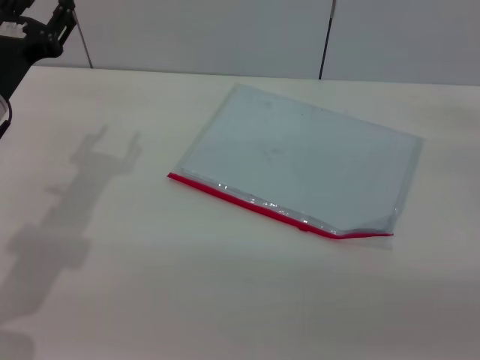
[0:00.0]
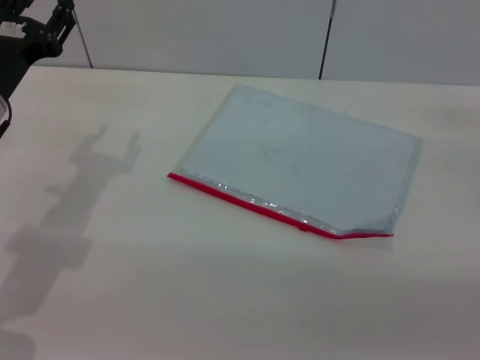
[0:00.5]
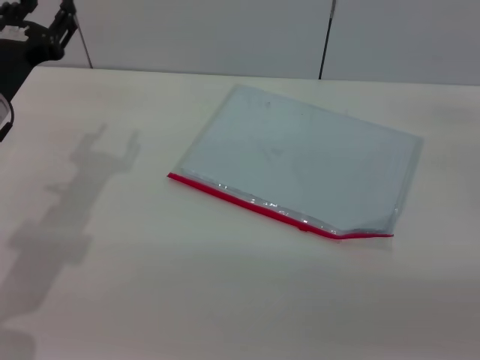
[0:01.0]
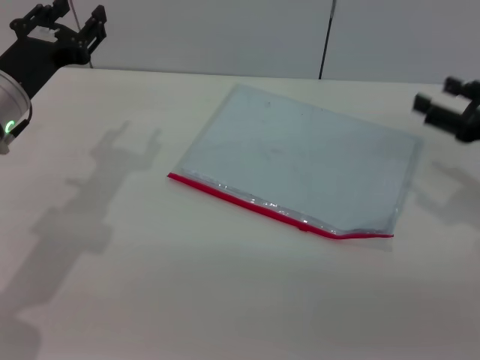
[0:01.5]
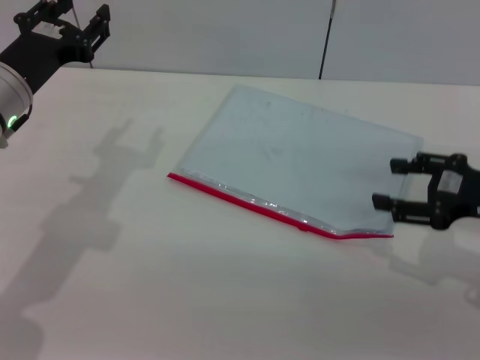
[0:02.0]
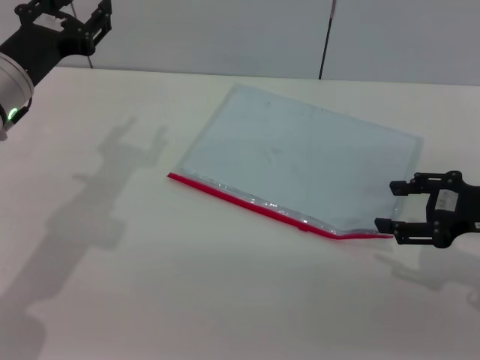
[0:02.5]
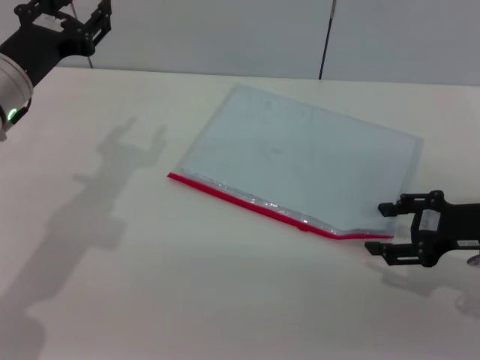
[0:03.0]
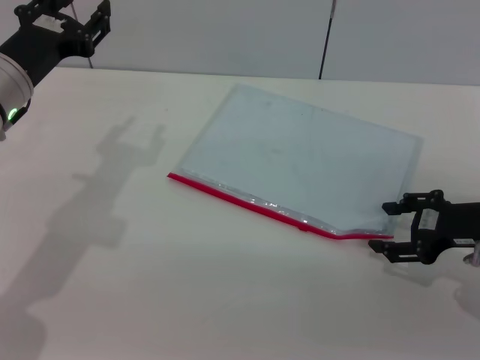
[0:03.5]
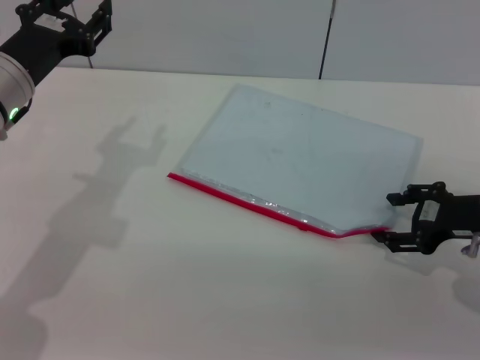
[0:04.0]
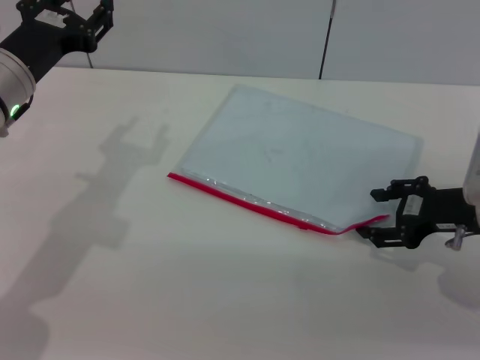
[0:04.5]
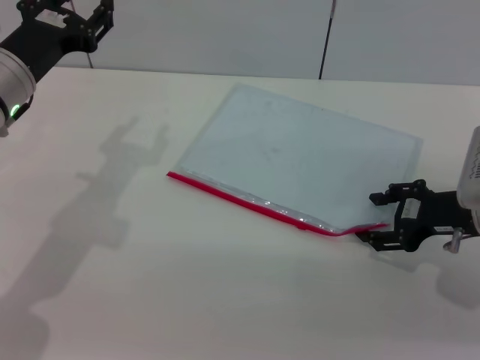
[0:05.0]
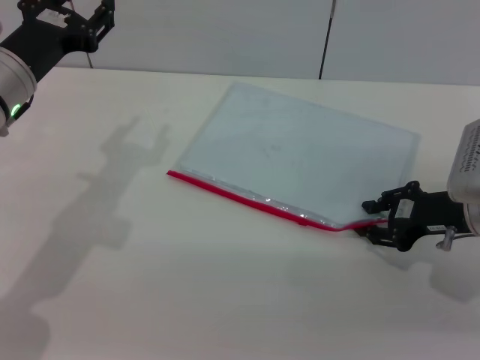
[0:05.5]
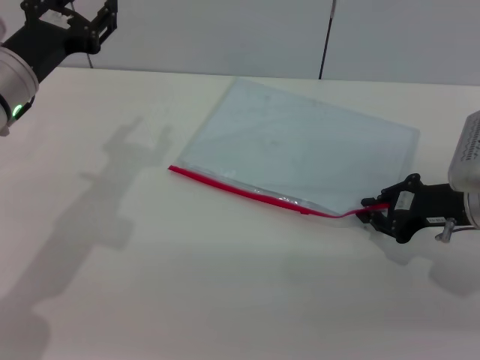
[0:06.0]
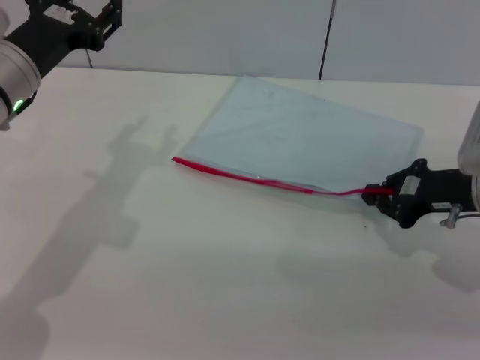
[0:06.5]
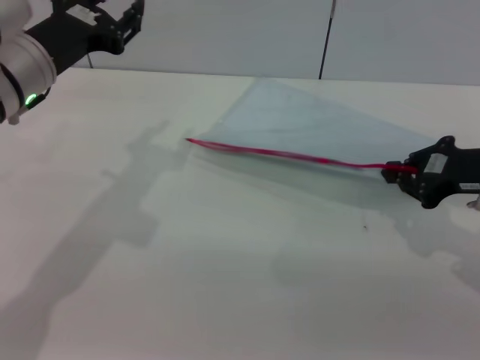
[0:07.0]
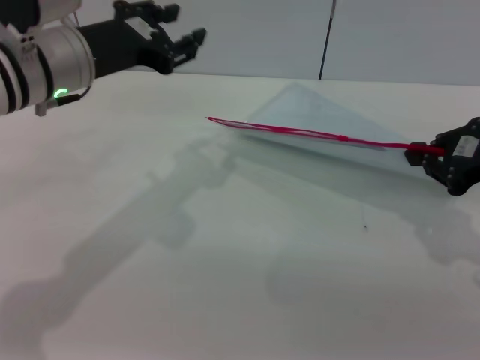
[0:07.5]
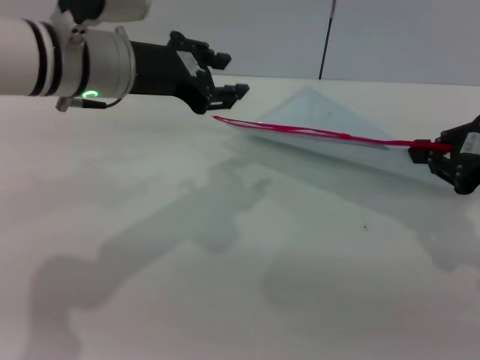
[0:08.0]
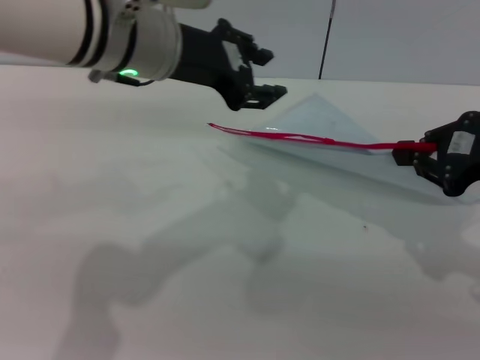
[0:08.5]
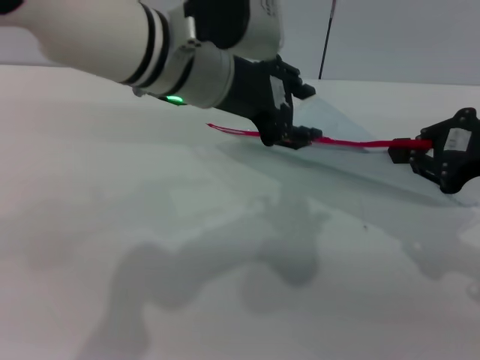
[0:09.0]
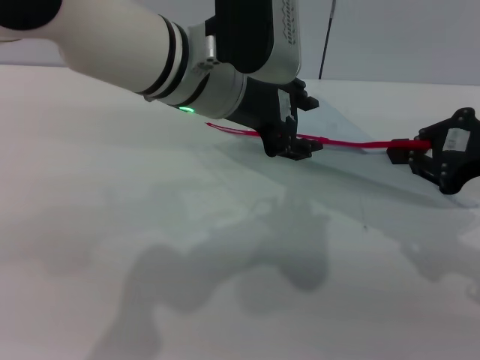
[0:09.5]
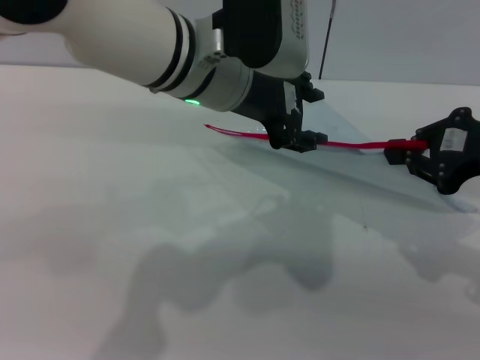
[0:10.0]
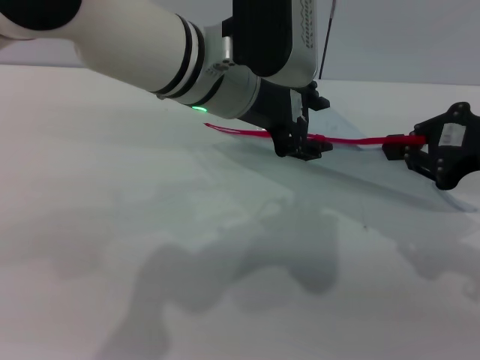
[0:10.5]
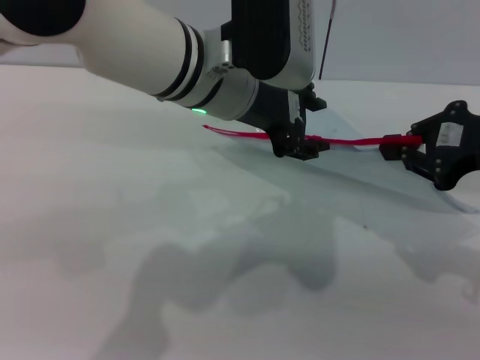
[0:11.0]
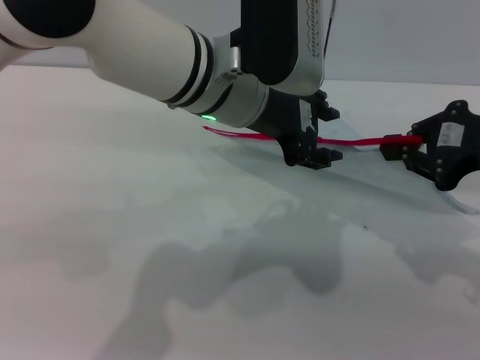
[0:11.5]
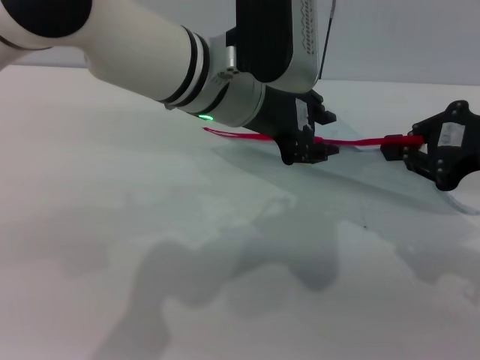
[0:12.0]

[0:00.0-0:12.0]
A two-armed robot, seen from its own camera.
Step, 0:00.0 to 0:08.5: Pick up the transparent plastic bag with the right gripper.
0:00.0 to 0:02.0: The right gripper is displaced to the left by roughly 5 cm.
0:04.0 to 0:06.0: The right gripper closes up.
0:06.0 to 0:08.0: The left gripper travels to the right and upward by roughly 10 cm, while the right gripper travels upward by about 10 cm.
0:08.0 to 0:10.0: The left gripper shifts some 10 cm to the right.
0:10.0 to 0:12.0: The grippers make only small movements.

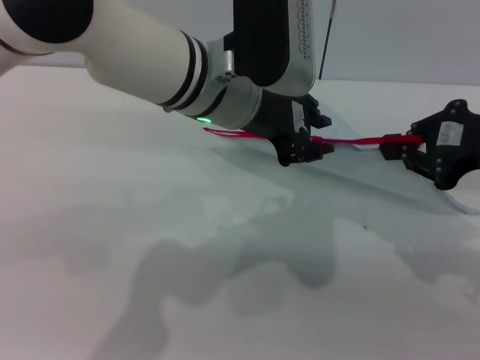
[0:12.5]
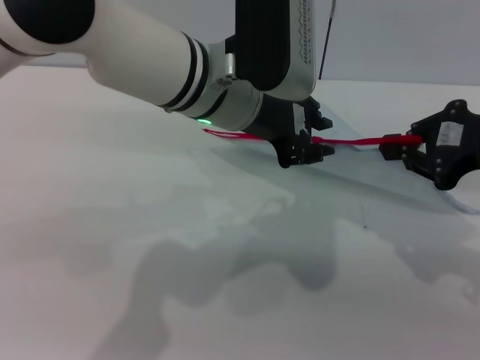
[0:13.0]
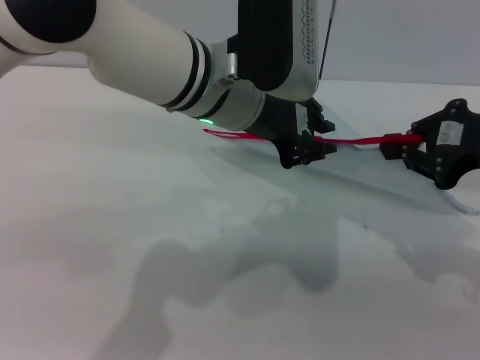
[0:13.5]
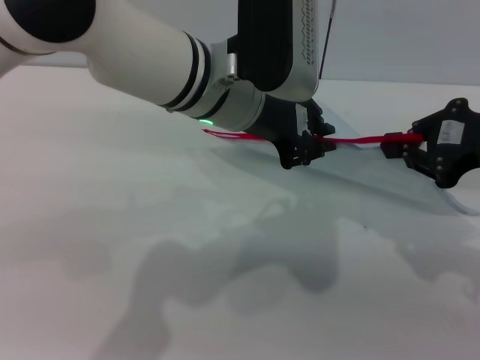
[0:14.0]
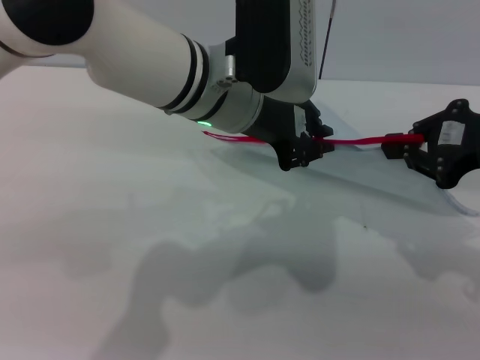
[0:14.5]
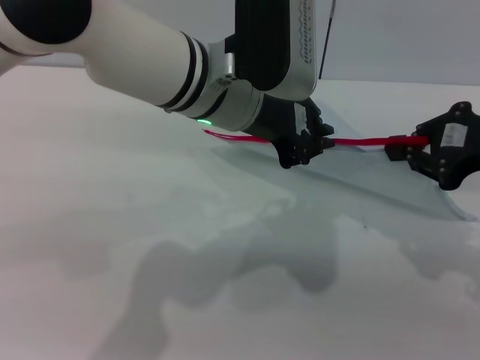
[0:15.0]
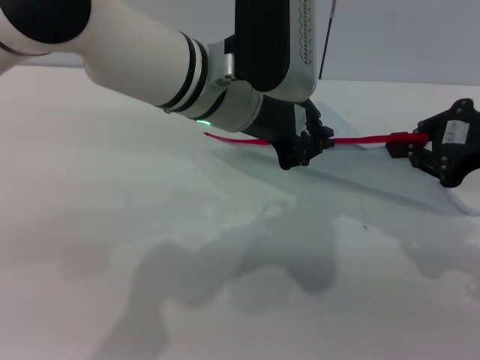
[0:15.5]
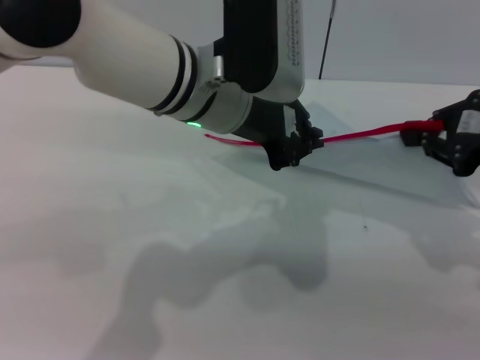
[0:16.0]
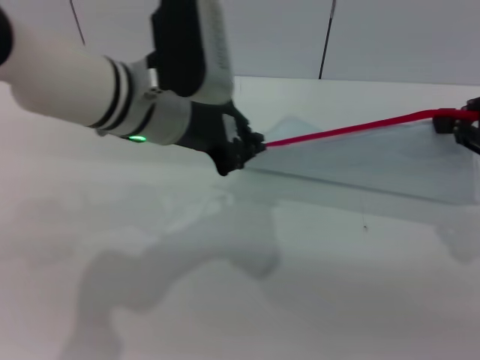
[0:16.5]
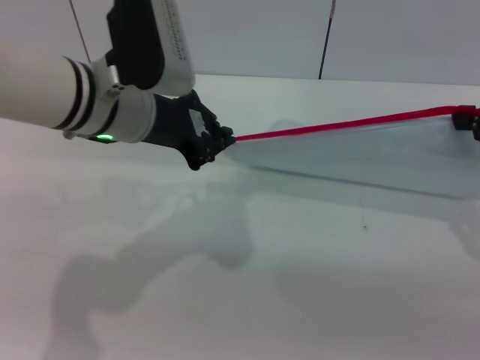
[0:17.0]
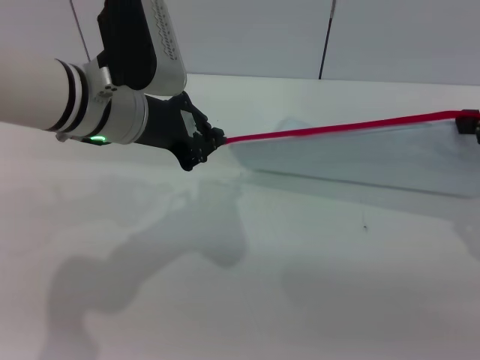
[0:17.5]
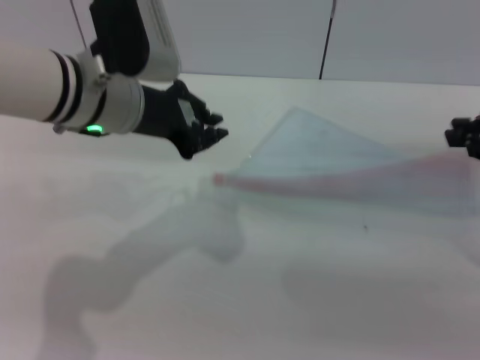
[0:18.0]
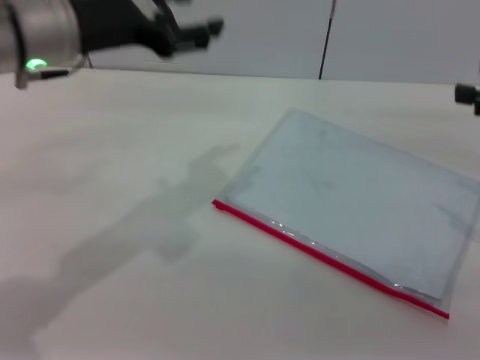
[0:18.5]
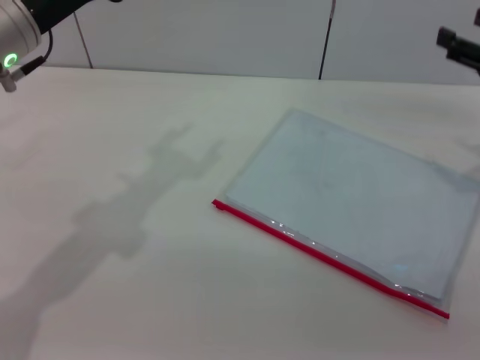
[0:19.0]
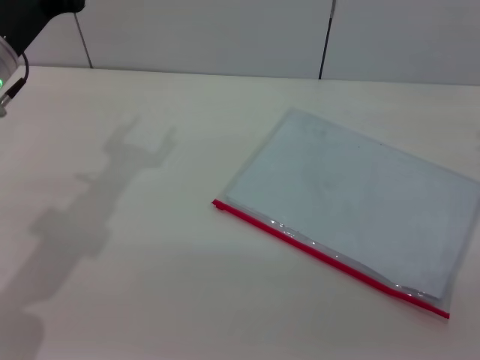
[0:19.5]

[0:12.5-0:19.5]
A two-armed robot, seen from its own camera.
Step, 0:12.5 to 0:17.5: Pulling up the zipper on the transparent plastic bag with the left gripper to close it.
Step, 0:18.0 to 0:18.5: Place the transparent plastic bag.
0:12.5 to 0:14.5: The left gripper closes.
0:14.5 to 0:16.0: There are only small adjustments of the grippers.
0:16.0 to 0:17.5: The left gripper is displaced to the left by roughly 10 cm.
0:17.5 to 0:19.5: The right gripper goes approximately 5 cm downward, and opens up. Meanwhile the left gripper travels to the left by about 10 cm, and opens up.
